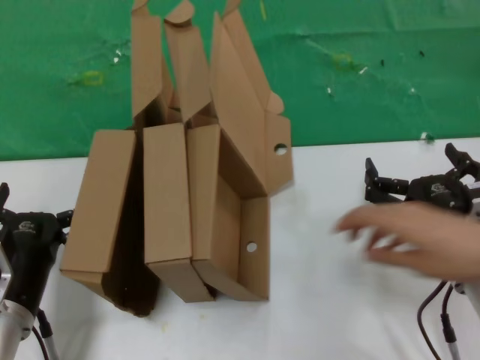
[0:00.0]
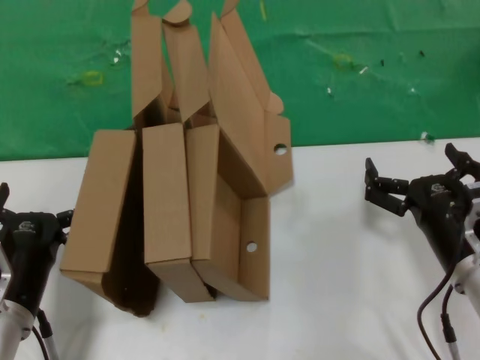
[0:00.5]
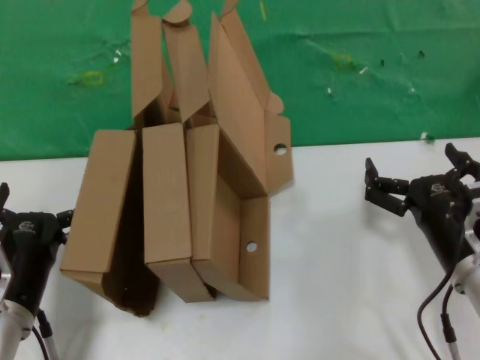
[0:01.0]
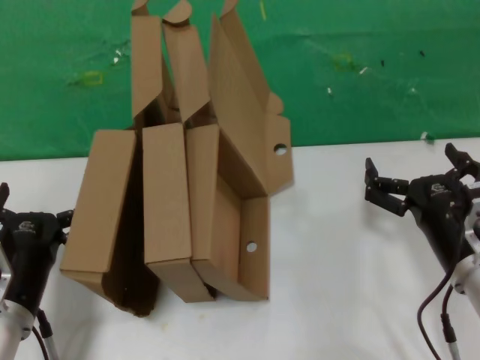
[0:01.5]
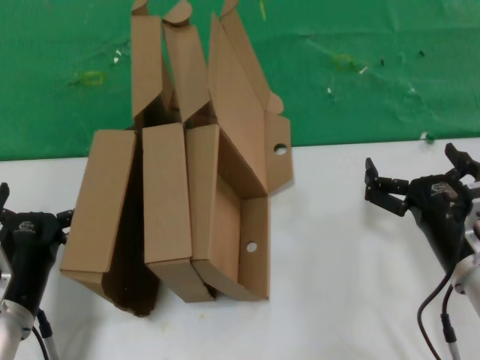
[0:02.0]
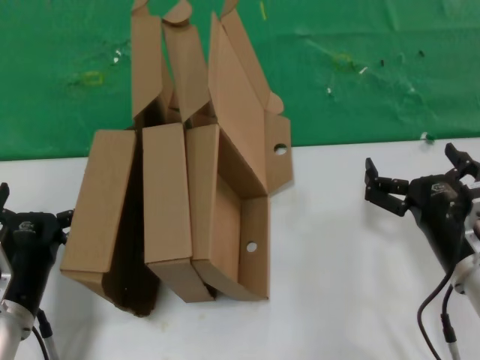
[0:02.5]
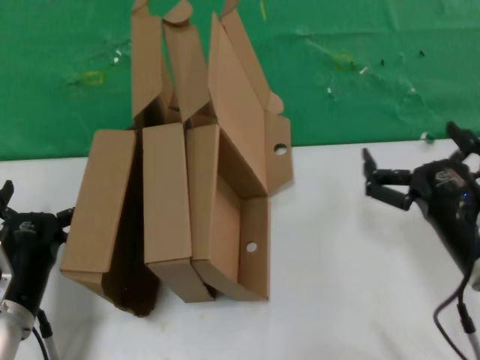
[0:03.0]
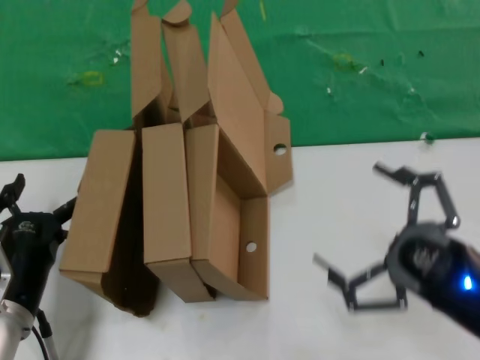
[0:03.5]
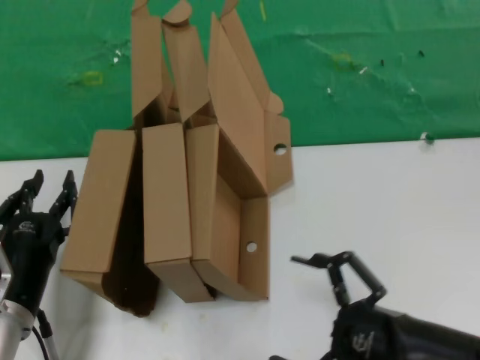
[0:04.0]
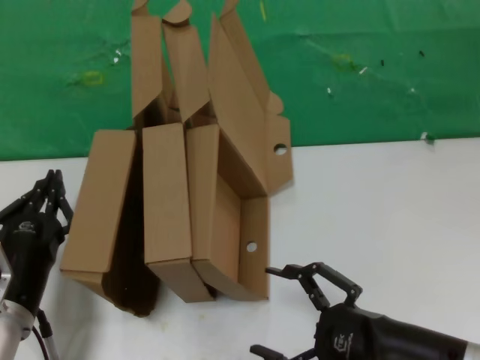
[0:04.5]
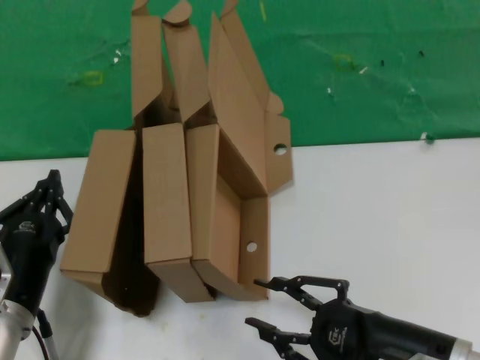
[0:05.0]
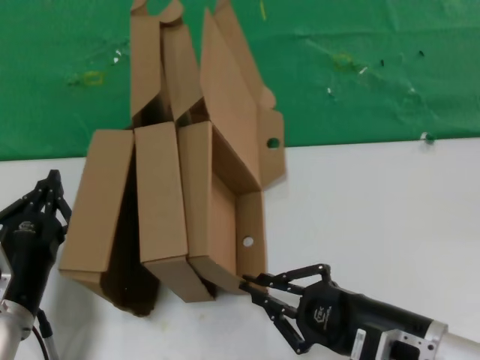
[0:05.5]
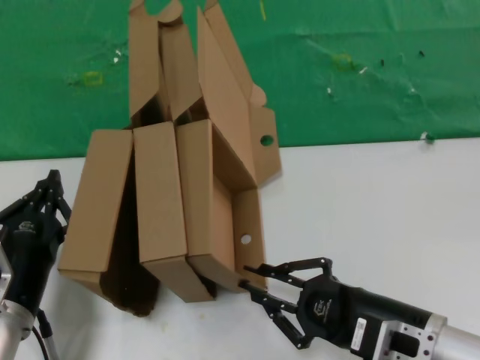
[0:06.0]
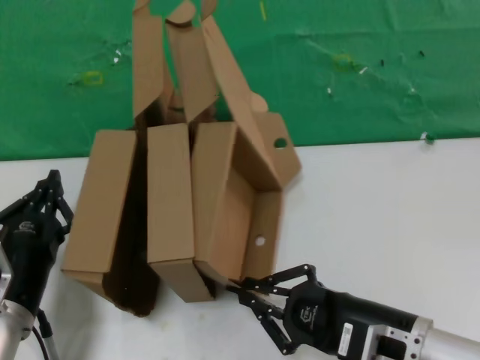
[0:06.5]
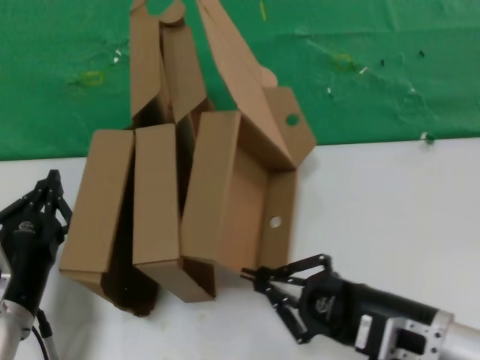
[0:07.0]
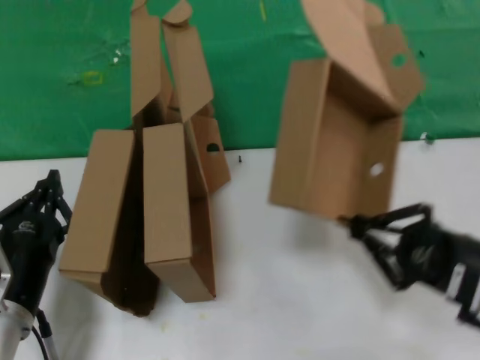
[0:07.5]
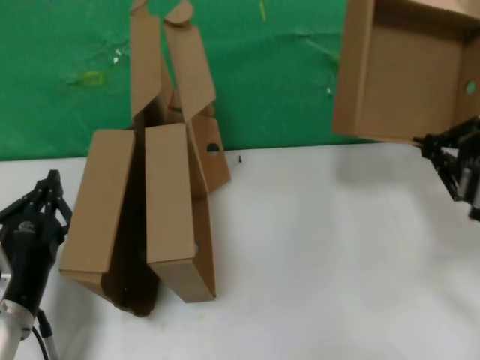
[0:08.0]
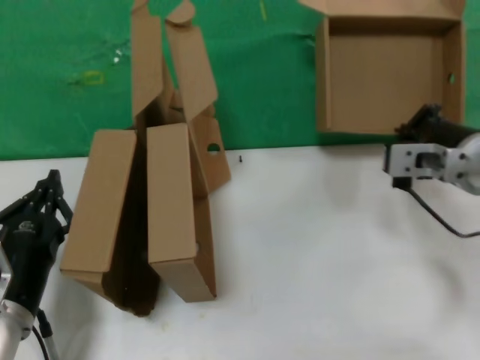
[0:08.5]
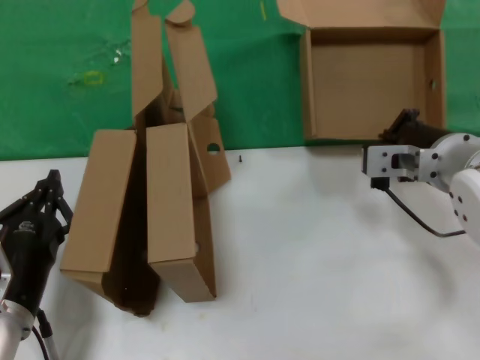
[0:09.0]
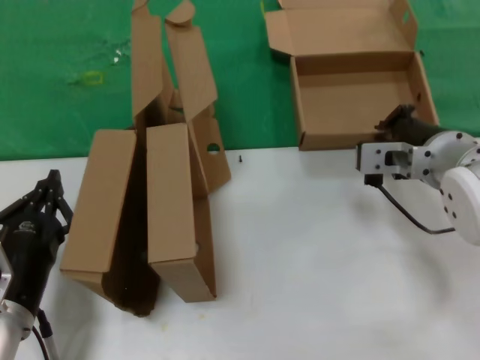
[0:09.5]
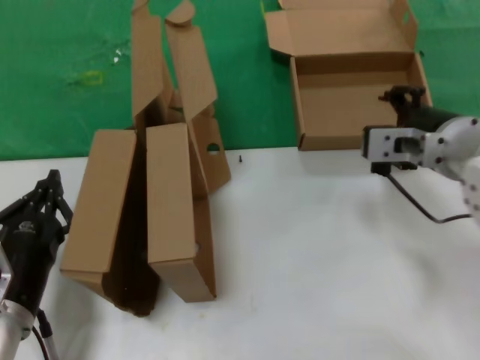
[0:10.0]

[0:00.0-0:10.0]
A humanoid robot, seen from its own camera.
Task of the whole recording: pick up the paper box and put it at the back.
Step, 0:00.0 to 0:06.0: Grasp the paper box.
Step, 0:06.5 to 0:09.5: Place the paper box on the table.
0:00.0 to 0:02.0: Neither hand changes place.
0:02.0 to 0:04.0: The right hand shifts roughly 10 cm backward.
0:04.0 to 0:06.0: The right hand heads forward, covering about 5 cm.
0:06.0 to 0:08.0: The right hand goes some 20 cm upward and to the right.
0:08.0 to 0:10.0: The right hand is displaced forward and to the left by roughly 15 cm.

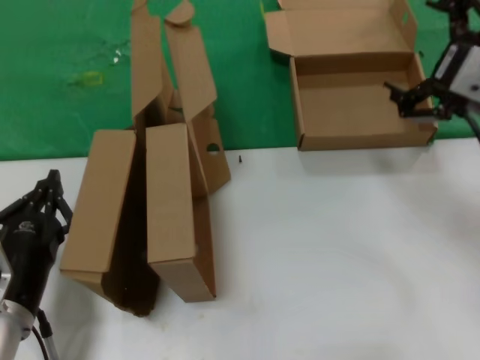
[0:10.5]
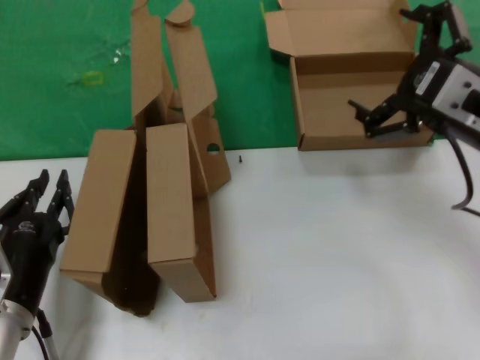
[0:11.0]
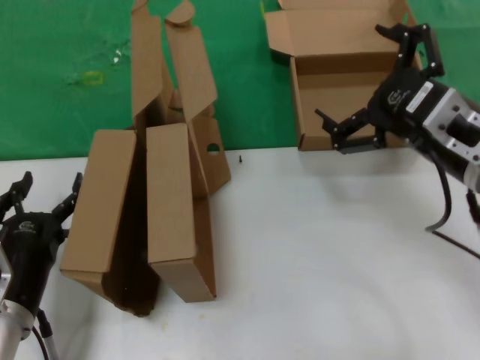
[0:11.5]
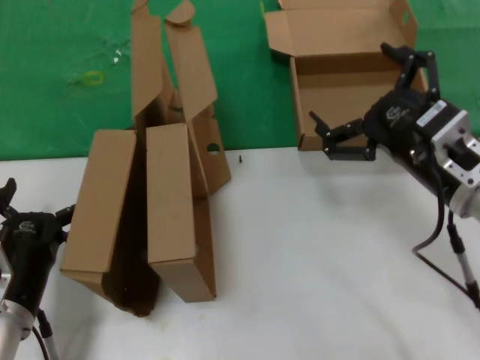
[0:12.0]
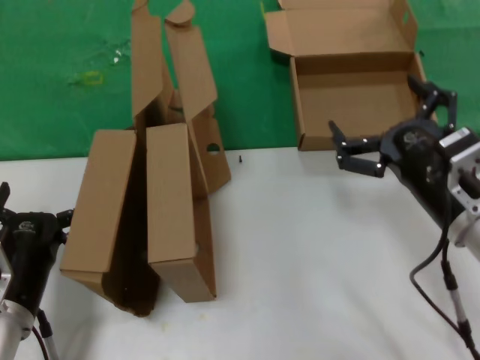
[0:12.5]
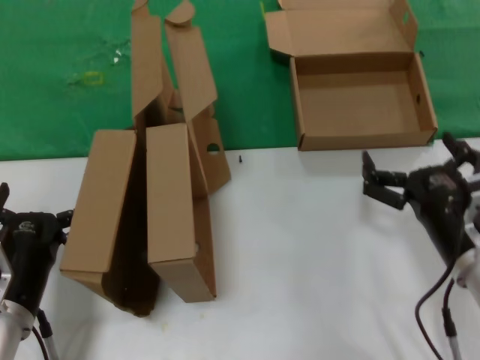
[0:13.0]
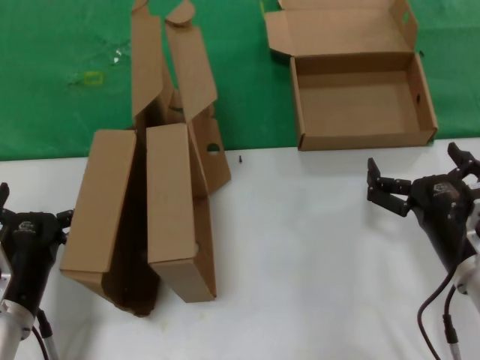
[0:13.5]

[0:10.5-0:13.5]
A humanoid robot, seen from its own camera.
Task of the whole recording: pick up the paper box and put it at the back.
0:10.5 to 0:12.0: The right hand heads downward, covering about 10 cm.
0:12.0 to 0:13.5: The right hand shifts roughly 10 cm downward.
